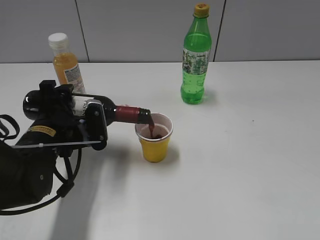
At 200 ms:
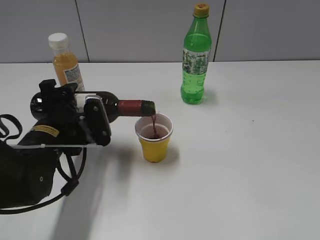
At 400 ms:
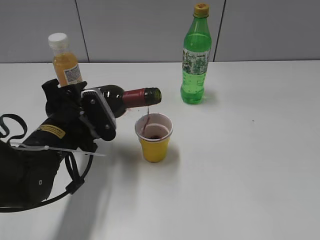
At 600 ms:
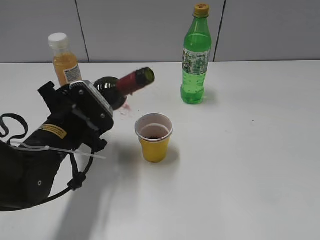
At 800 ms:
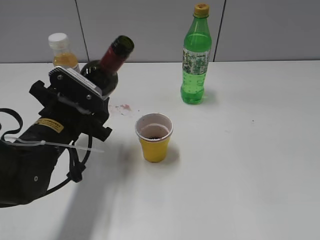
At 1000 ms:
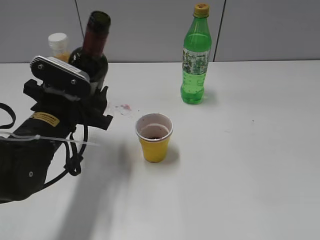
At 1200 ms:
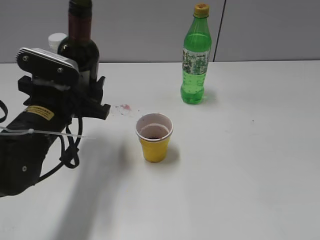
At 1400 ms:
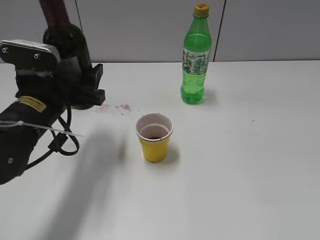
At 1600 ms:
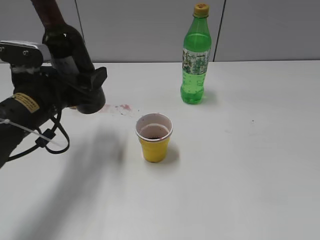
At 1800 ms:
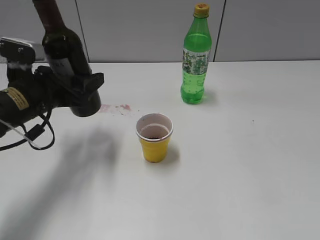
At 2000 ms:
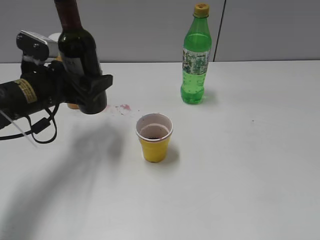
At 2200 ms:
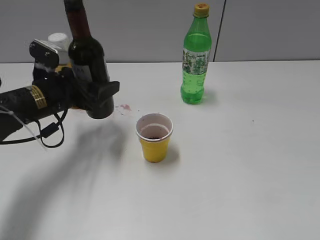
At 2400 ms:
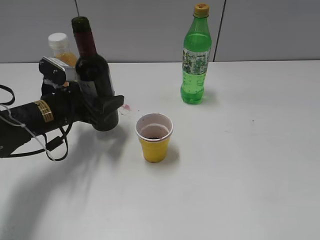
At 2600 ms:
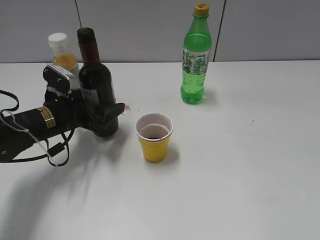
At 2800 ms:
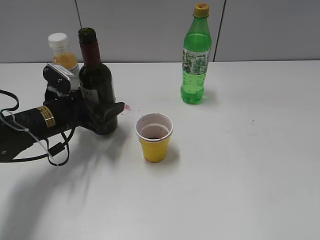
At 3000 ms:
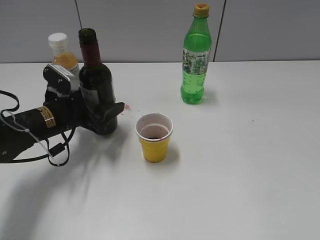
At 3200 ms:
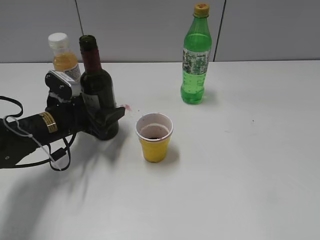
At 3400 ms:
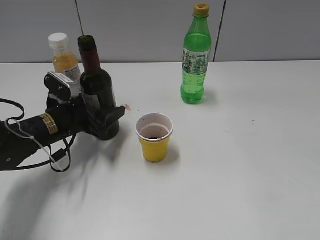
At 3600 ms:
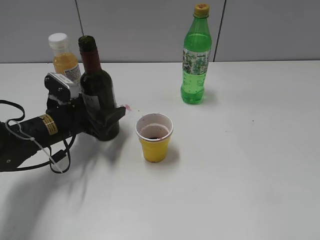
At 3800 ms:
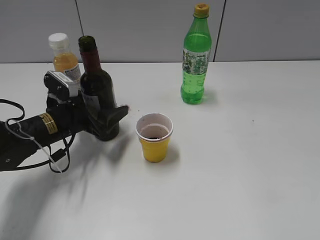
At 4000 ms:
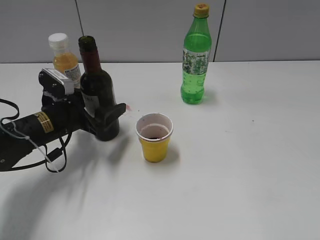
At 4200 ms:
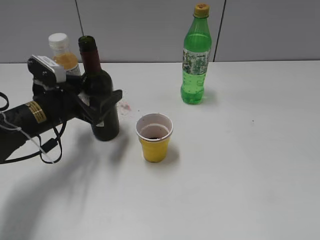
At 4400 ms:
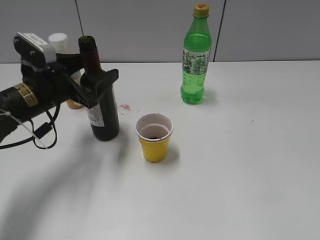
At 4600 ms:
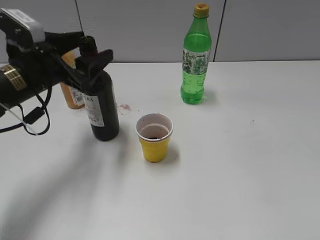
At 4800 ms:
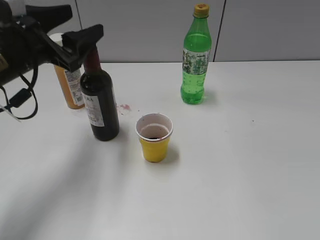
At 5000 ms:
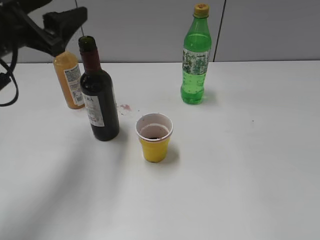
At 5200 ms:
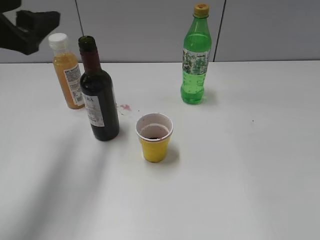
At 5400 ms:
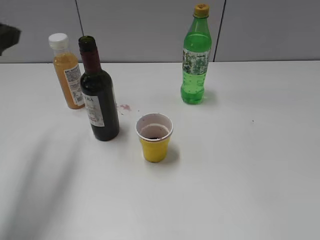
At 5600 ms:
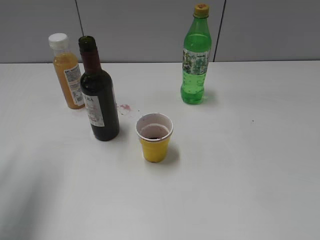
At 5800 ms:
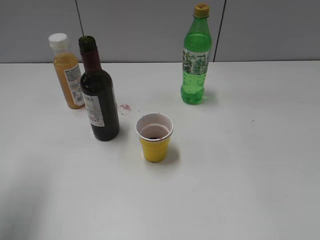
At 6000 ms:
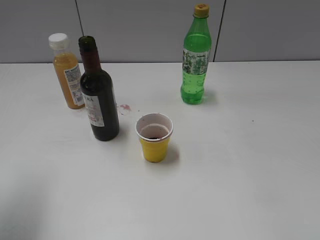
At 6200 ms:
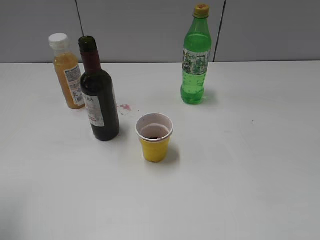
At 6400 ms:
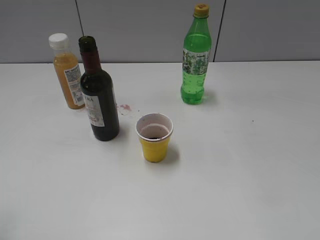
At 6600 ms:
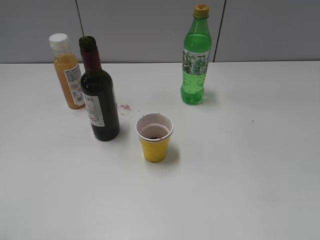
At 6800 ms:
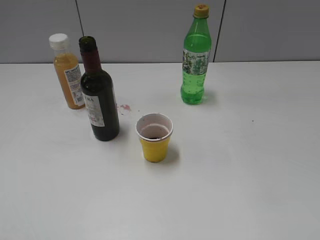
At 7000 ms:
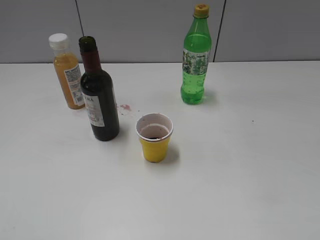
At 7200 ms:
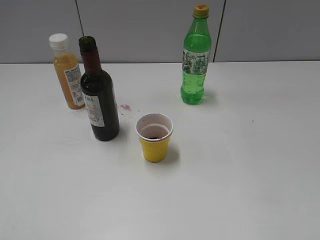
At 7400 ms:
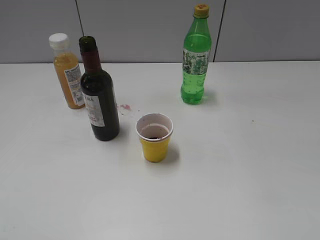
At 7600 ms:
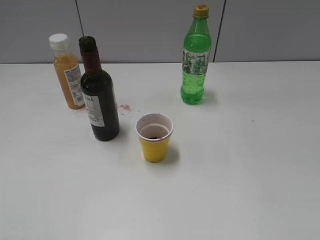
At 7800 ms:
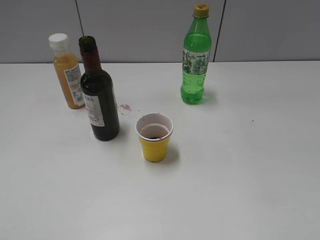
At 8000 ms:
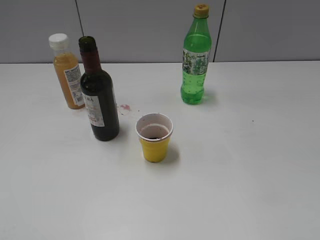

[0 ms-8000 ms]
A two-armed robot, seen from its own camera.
Step, 600 ms to 4400 ms: Place the red wine bottle on the table with left gripper.
0 ms to 1600 ms: The left gripper ends up about 5 cm from where it was.
1600 ms to 3200 ms: The left gripper shifts roughly 10 cm downward.
3200 ms to 4800 ms: The left gripper is displaced upward by some 15 cm.
4800 ms to 6400 ms: The left gripper moves backward and to the left, some 20 cm.

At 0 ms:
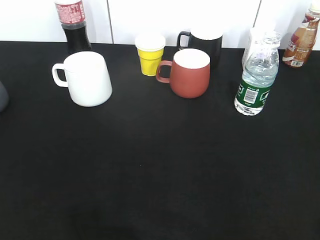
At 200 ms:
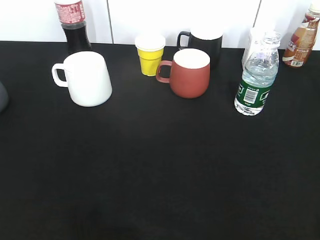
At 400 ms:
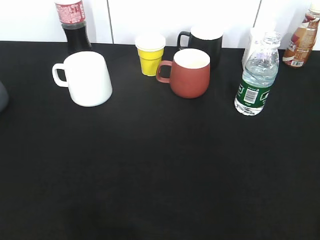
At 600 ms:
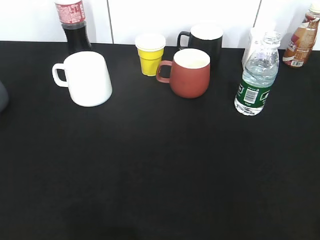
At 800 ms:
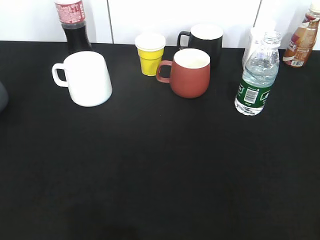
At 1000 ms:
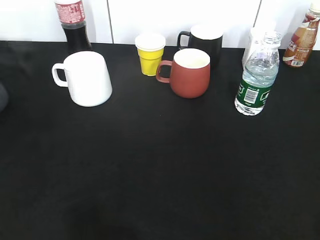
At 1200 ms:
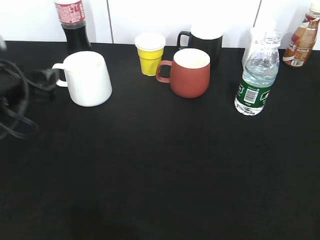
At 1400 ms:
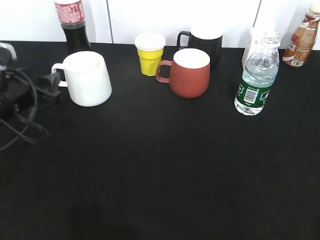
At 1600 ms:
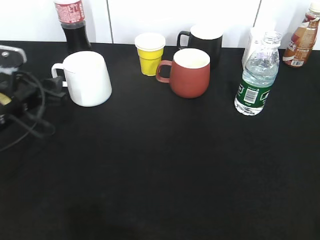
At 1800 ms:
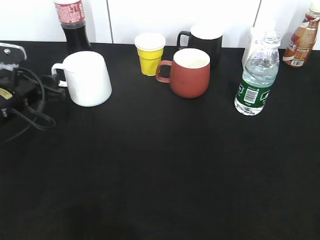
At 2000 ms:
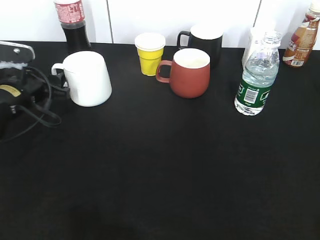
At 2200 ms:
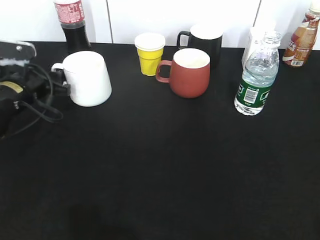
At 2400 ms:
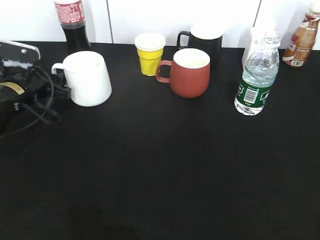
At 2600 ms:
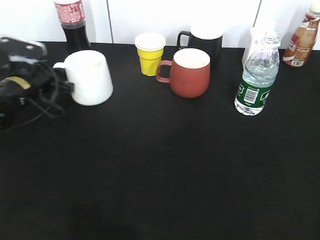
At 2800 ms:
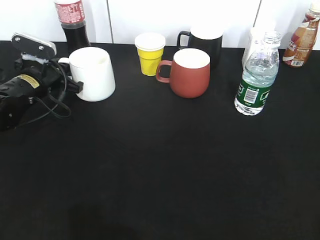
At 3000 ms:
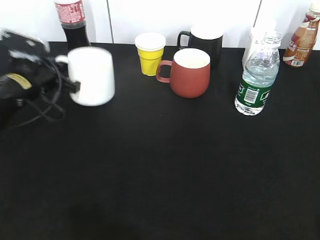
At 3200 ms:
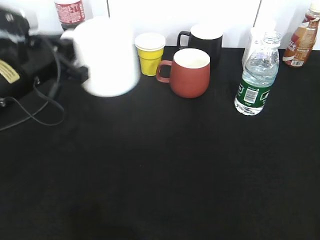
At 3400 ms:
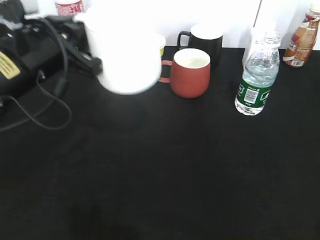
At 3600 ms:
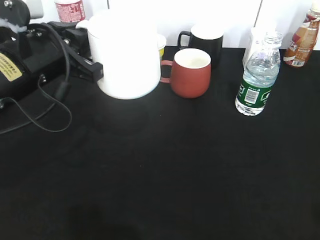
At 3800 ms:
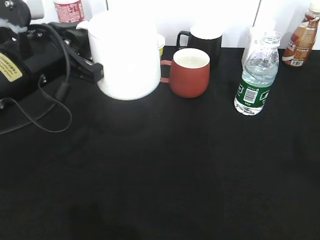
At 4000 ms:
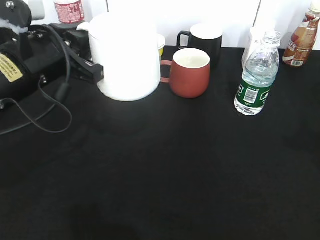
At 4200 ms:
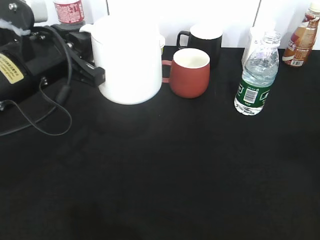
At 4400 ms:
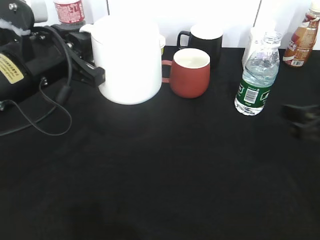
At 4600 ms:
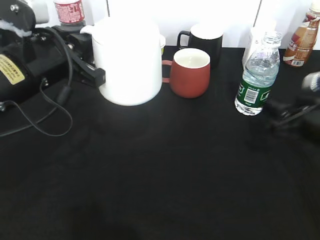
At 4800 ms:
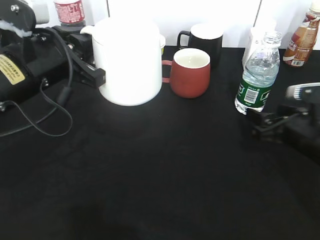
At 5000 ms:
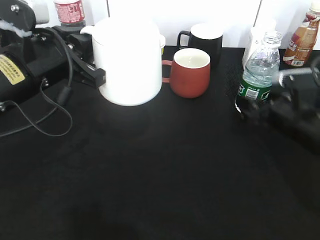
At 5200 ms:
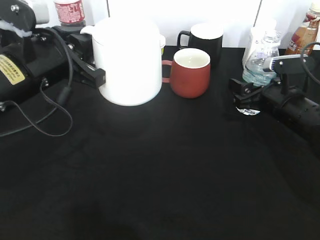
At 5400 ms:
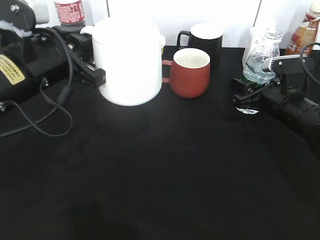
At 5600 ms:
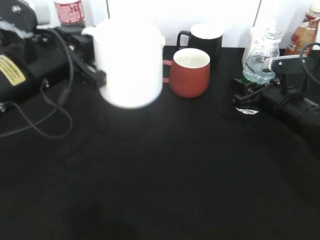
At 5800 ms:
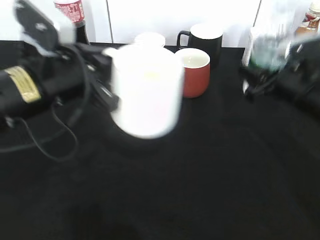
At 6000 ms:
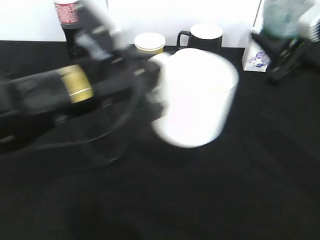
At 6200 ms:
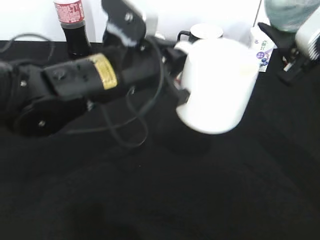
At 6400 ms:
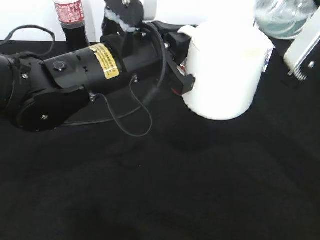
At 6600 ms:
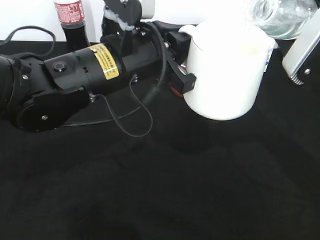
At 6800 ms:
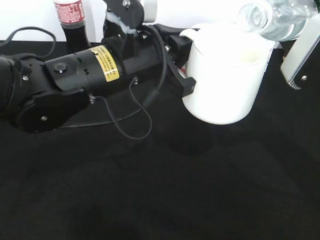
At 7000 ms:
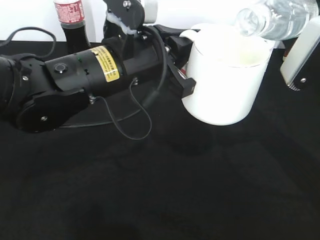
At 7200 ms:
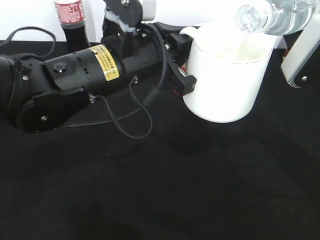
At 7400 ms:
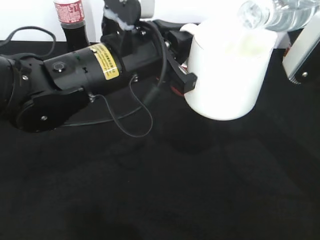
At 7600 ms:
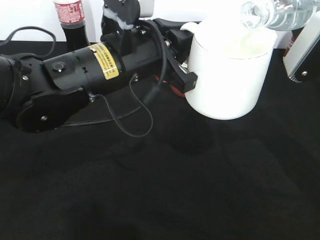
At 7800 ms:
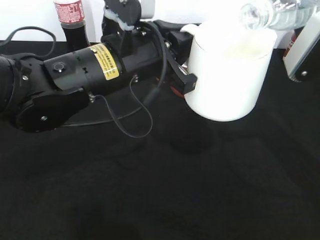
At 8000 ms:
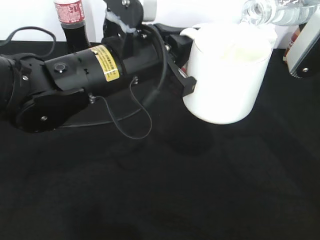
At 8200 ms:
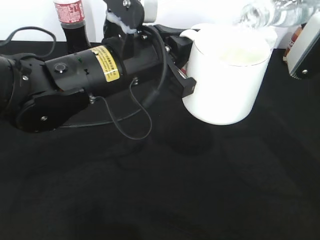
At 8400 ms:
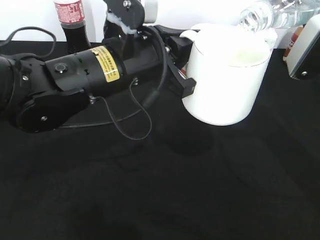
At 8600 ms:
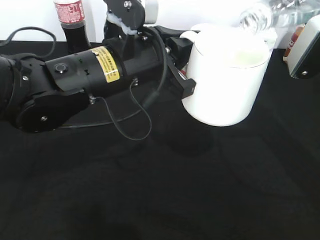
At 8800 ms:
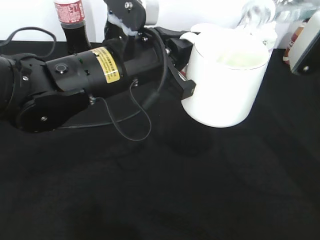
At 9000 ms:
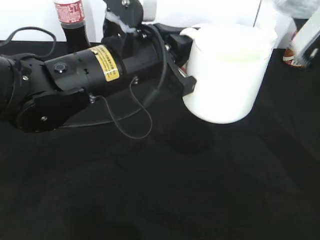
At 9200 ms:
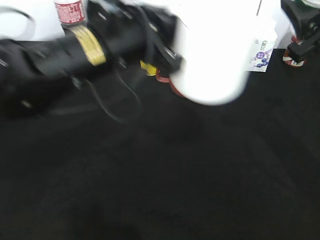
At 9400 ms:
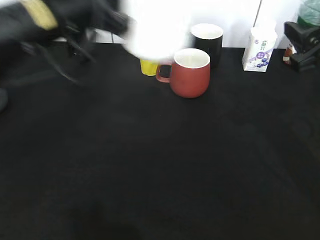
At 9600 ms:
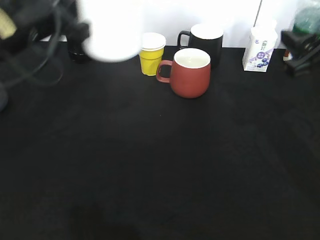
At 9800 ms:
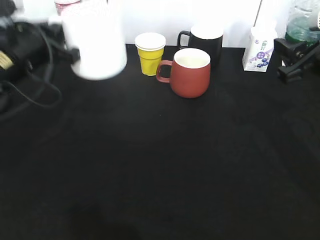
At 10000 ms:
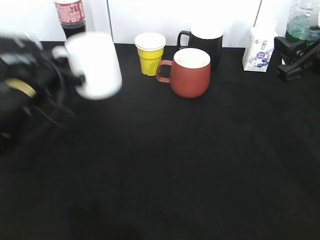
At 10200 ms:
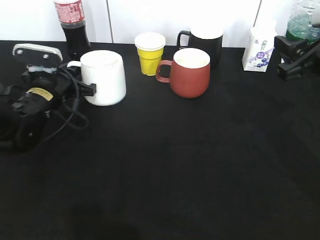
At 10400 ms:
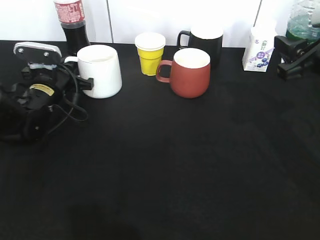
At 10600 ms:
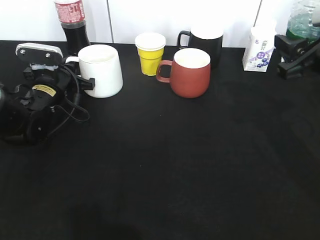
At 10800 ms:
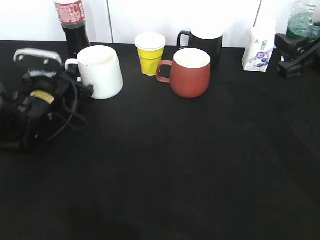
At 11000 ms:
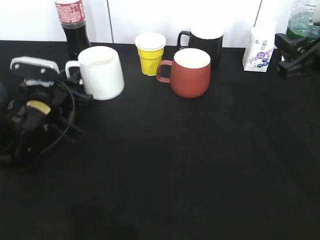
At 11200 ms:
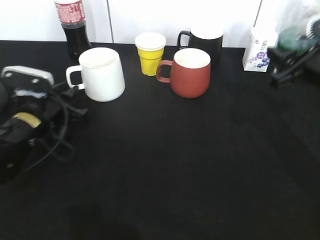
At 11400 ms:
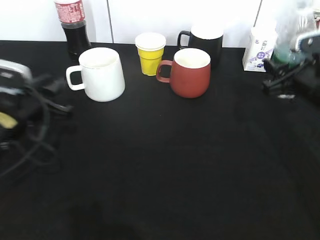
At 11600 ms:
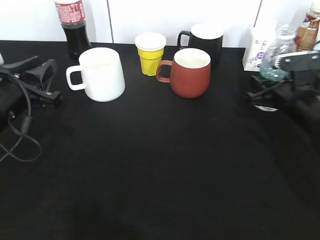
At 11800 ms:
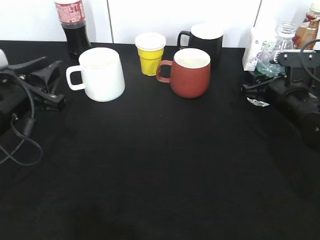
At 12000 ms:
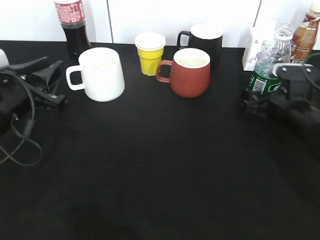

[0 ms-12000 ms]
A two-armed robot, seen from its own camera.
Step, 0 ms to 2600 ms: Grasp the white cup with left gripper.
Step, 3000 ms to 3400 ms: Lift the white cup with left gripper.
Step, 3600 ms to 5200 ms: Grasp the bottle with water with right gripper.
Step, 5400 ms to 9200 ms: Pour the water from bottle to cup with right gripper.
Step, 9600 ms to 11200 ms: Place the white cup on the table with left gripper.
0 ms to 1600 ms: The left gripper is displaced forward and downward by about 35 cm, and opens.
1600 ms to 3000 ms: The left gripper heads forward, covering approximately 5 cm, and closes up.
3000 ms to 4400 ms: The right gripper is displaced forward and downward by approximately 25 cm, and opens up, while the left gripper goes approximately 15 cm backward, upward and to the right.
4400 ms to 6000 ms: The left gripper is displaced to the right by some 10 cm. The right gripper goes about 5 cm upward, and closes up.
7600 ms to 9000 ms: The grippers stay close to where they were, moving slightly.
9000 ms to 10400 ms: The left gripper heads to the left, downward and forward, covering some 25 cm. Meanwhile the right gripper moves approximately 5 cm.
10400 ms to 12000 ms: The right gripper moves downward and forward, some 15 cm, and opens its fingers. Meanwhile the left gripper heads backward and upward, covering about 15 cm, and opens its fingers.

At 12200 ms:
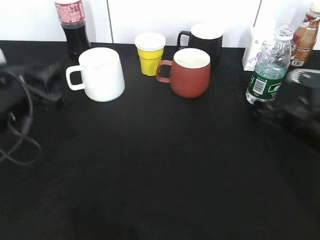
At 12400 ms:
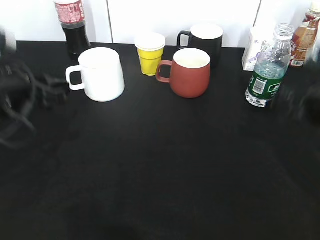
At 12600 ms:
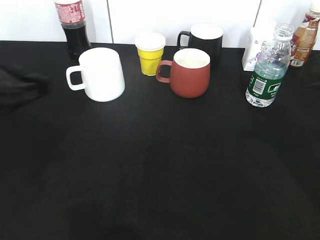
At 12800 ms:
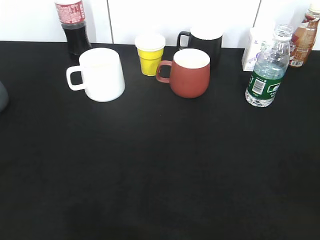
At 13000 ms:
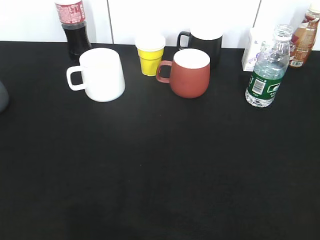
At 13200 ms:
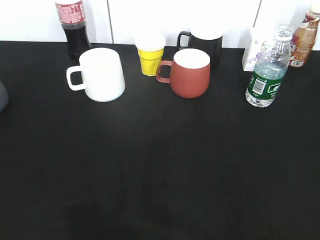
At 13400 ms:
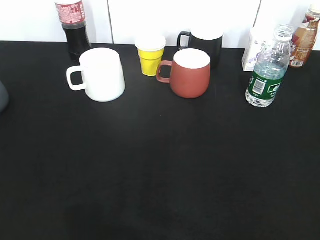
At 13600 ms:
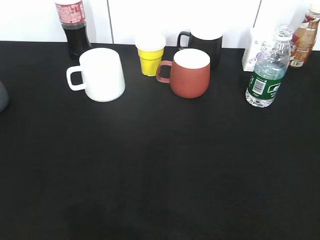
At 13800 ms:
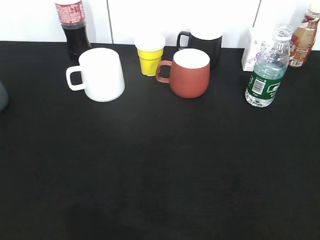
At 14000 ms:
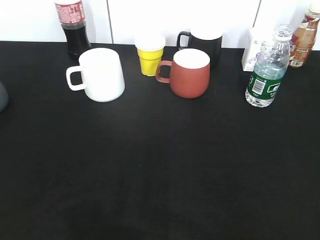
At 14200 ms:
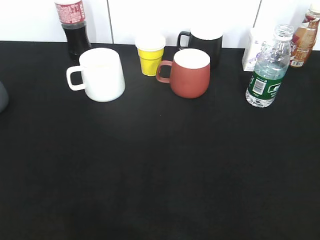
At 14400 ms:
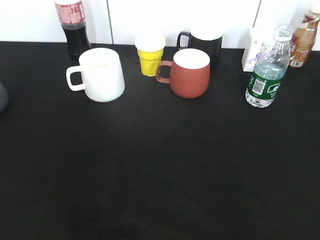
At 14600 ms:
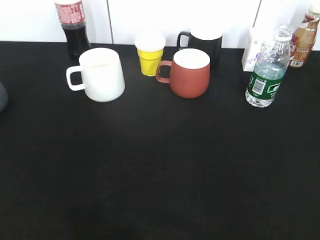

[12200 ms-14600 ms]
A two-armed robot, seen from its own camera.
12200 ms to 13400 ms: The left gripper travels backward, upward and to the left by approximately 30 cm. The right gripper is displaced backward and upward by some 35 cm.
